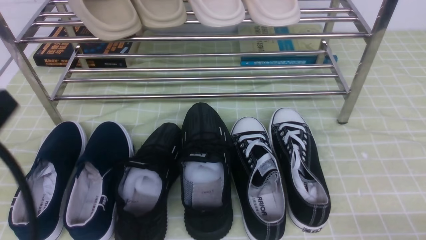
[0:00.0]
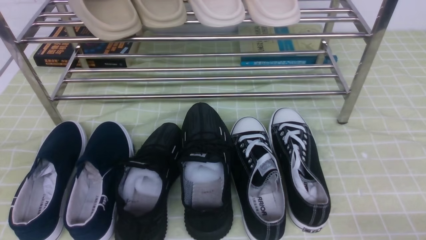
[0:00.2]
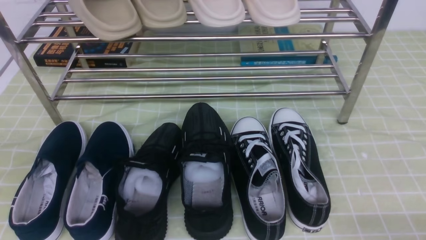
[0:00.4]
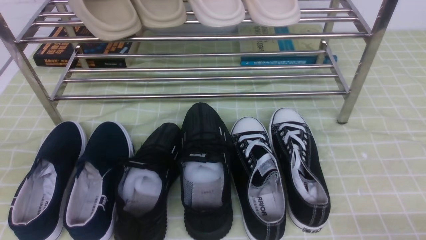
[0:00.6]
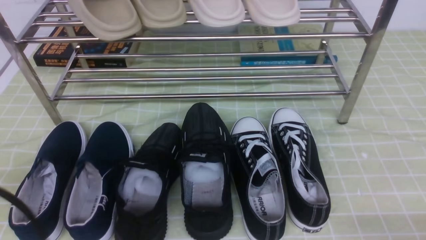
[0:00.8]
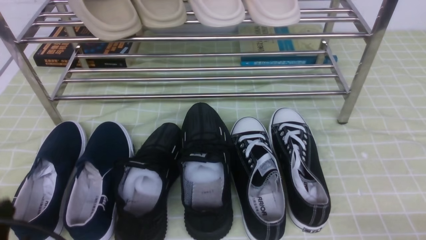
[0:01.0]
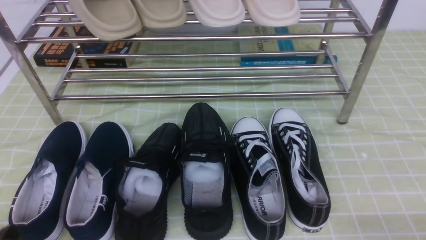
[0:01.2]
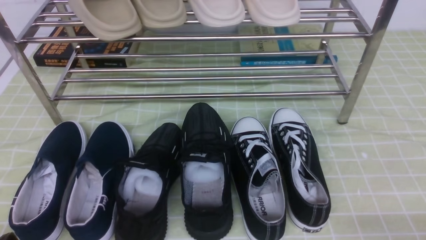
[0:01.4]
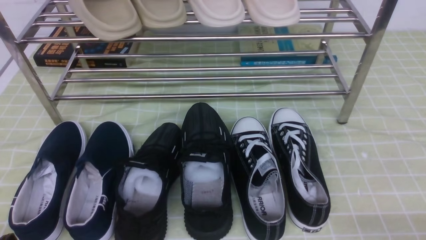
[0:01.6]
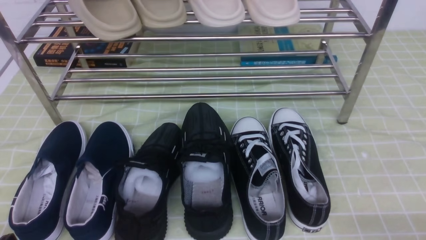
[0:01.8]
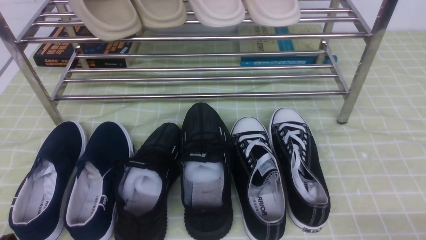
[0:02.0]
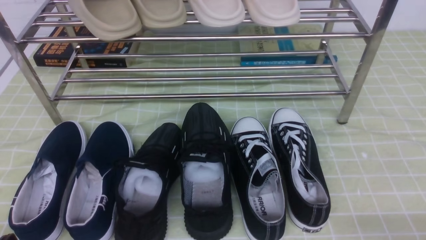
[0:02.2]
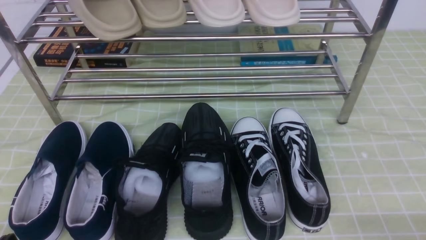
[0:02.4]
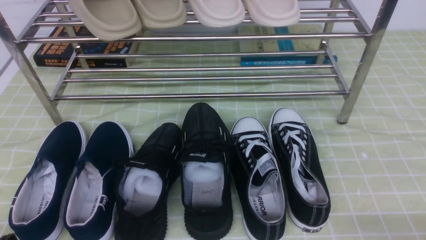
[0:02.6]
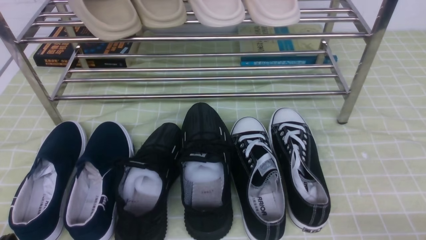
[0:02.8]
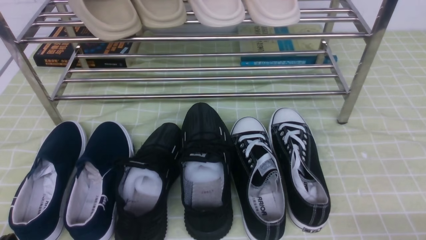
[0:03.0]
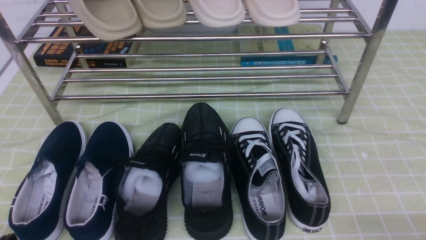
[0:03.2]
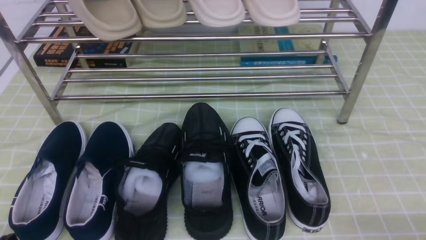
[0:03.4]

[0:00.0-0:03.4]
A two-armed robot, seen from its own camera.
0:00.0 to 0:01.6: The left gripper shifts some 20 cm downward.
0:01.6 to 0:03.4: Neither gripper changes place.
